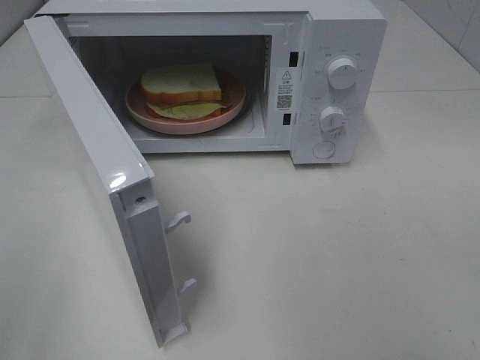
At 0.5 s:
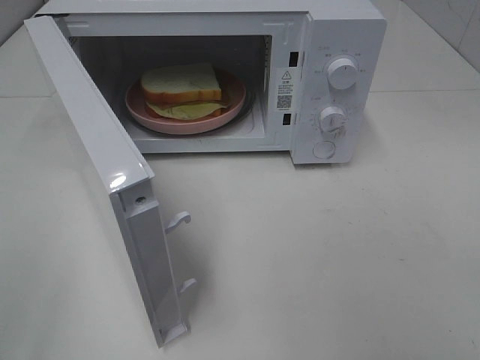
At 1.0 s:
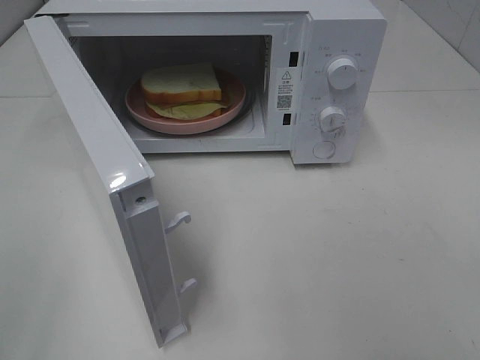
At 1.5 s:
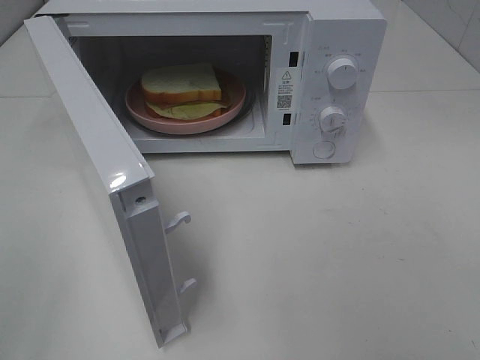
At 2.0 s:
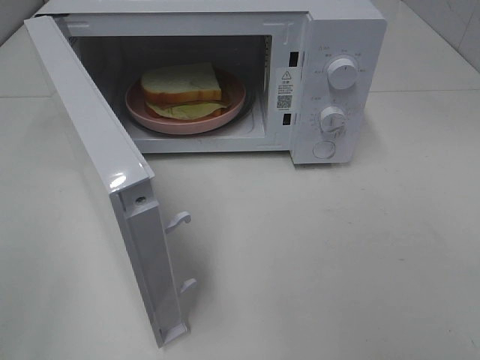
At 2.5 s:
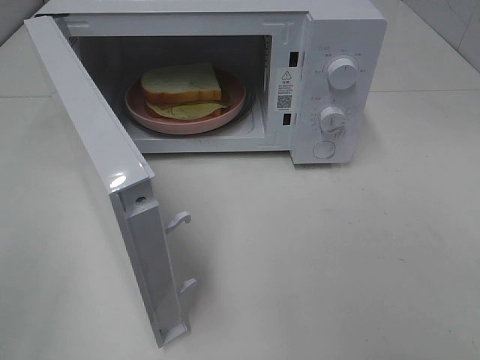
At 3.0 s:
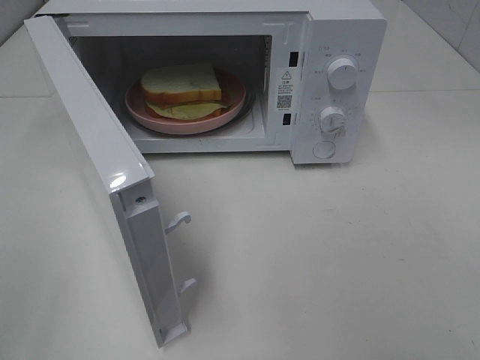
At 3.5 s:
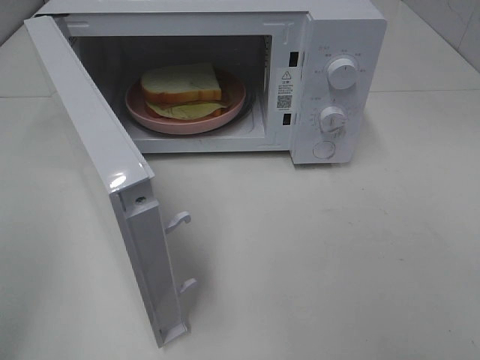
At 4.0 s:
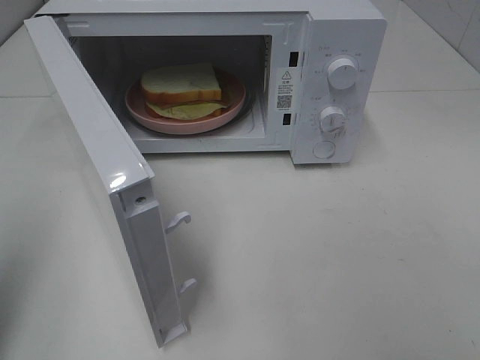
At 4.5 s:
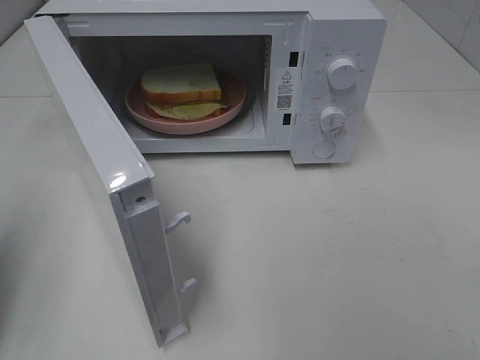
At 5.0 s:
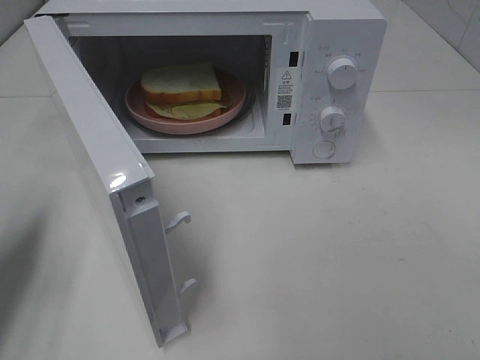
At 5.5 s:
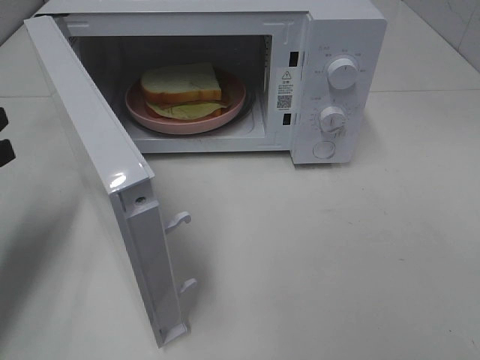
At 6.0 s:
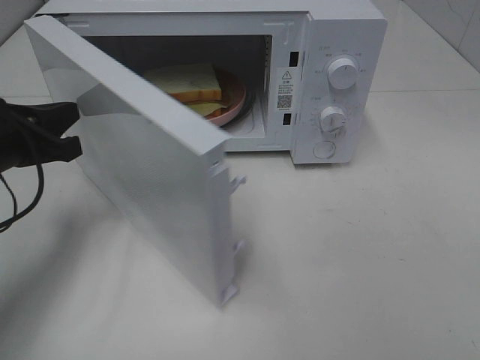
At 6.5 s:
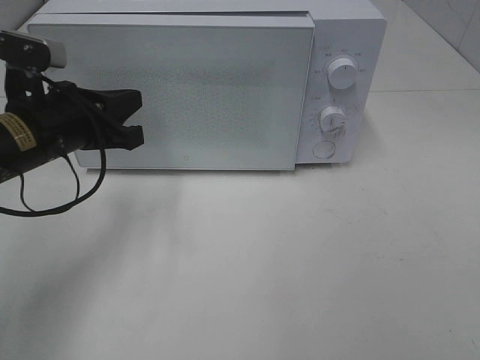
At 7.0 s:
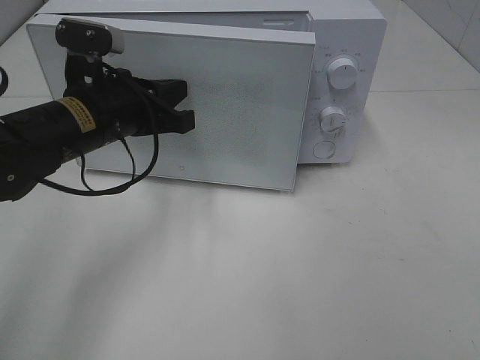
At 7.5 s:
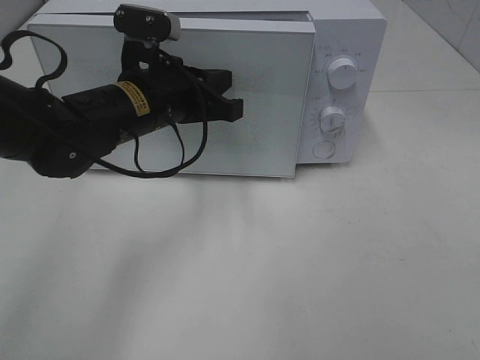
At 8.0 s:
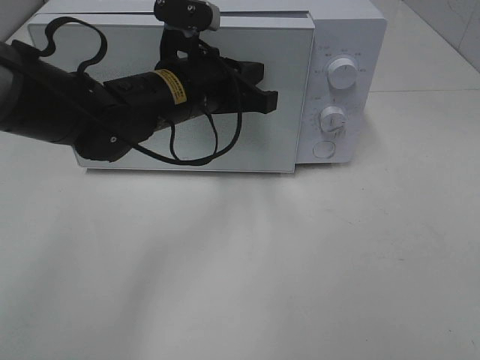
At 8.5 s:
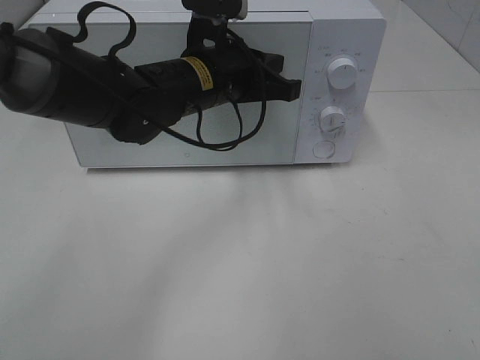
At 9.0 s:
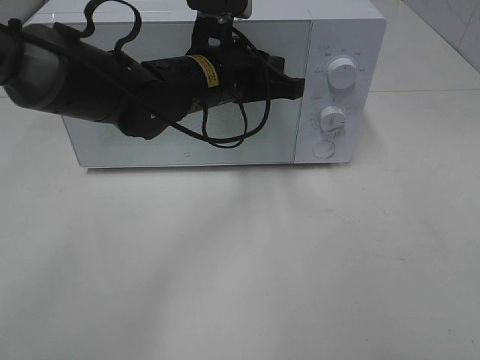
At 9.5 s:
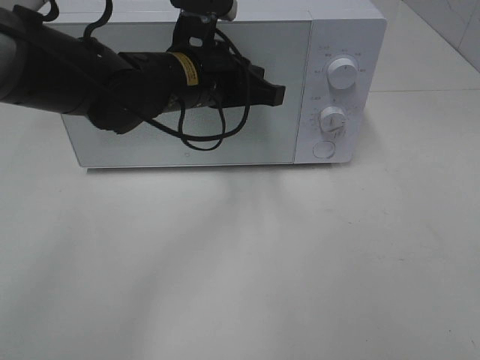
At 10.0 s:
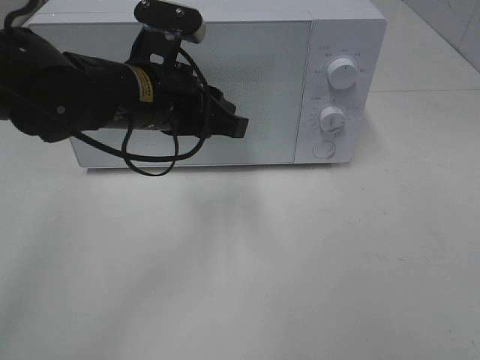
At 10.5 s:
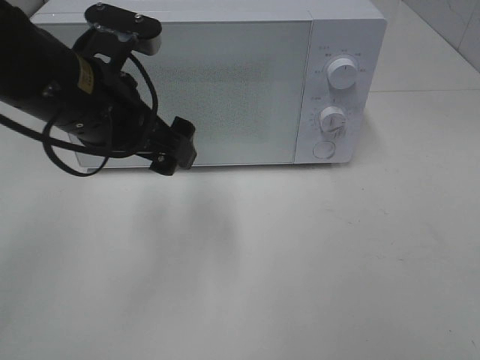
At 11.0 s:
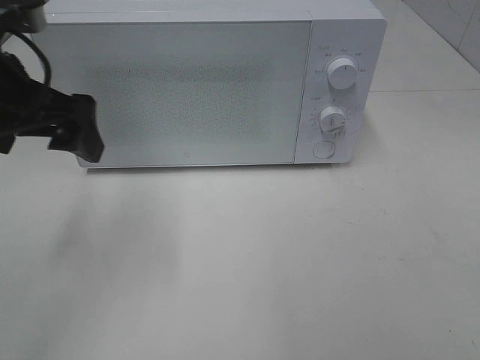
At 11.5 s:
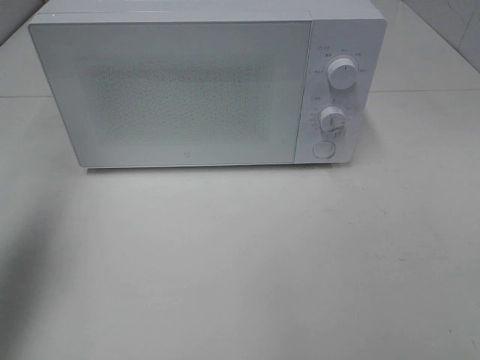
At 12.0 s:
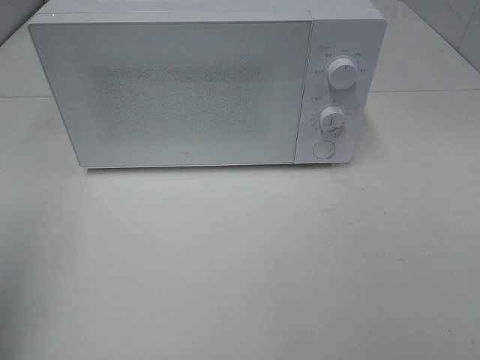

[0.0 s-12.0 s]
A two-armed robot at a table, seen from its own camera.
Task of the whole recording: Heat Sandwich.
Step, 0.0 to 10.0 s: Left hand: close the microwave door.
2.0 to 4.0 s: The left gripper travels forward by some 10 cm, and closes up.
4.0 to 6.0 s: The left gripper travels forward, downward and to the right by about 20 cm.
6.0 to 8.0 s: The left gripper goes some 20 cm to the right.
8.0 to 10.0 s: The left gripper changes place by approximately 5 cm, and opens up.
10.0 to 12.0 s: The left gripper travels to the left, backward and upward by some 35 cm, and opens.

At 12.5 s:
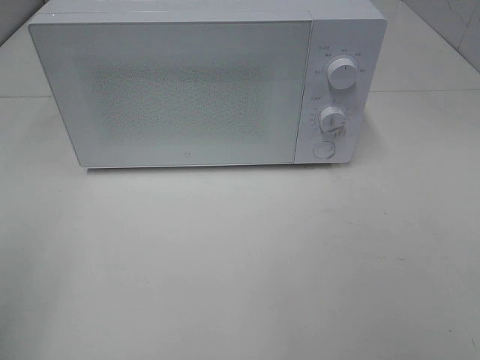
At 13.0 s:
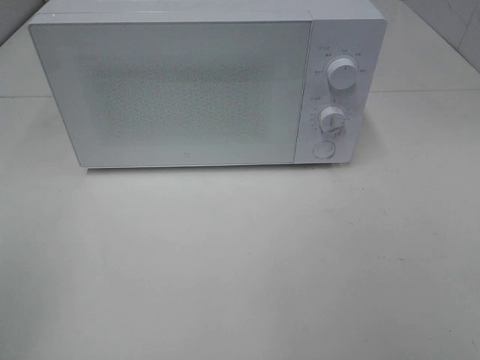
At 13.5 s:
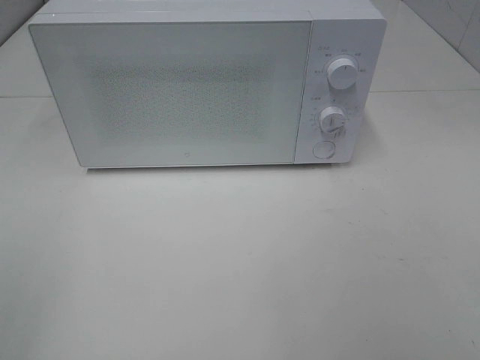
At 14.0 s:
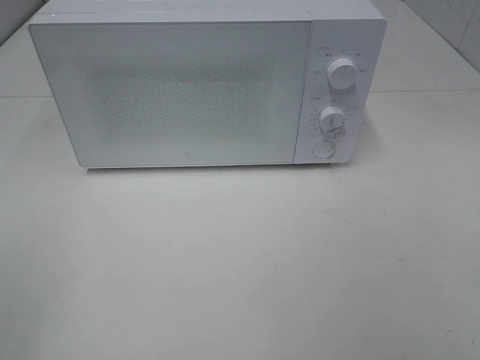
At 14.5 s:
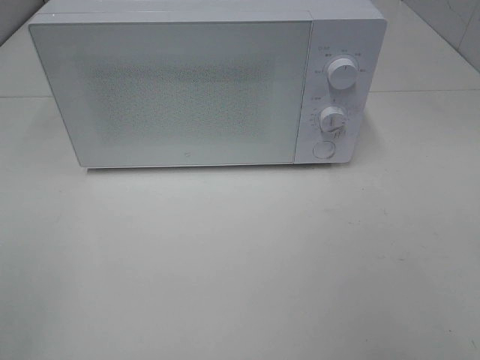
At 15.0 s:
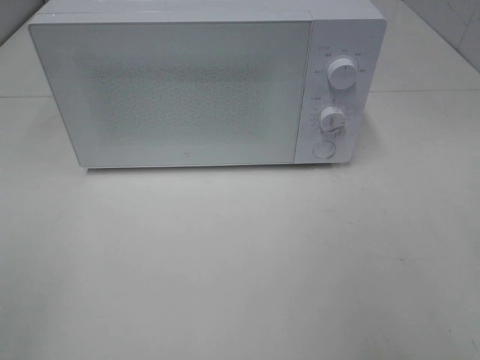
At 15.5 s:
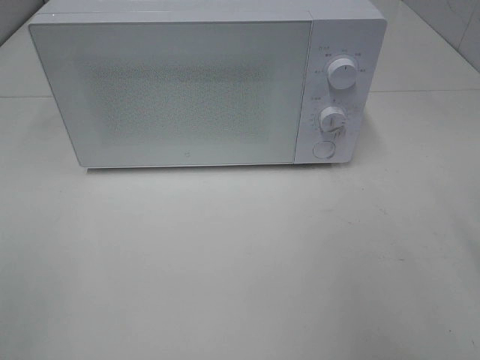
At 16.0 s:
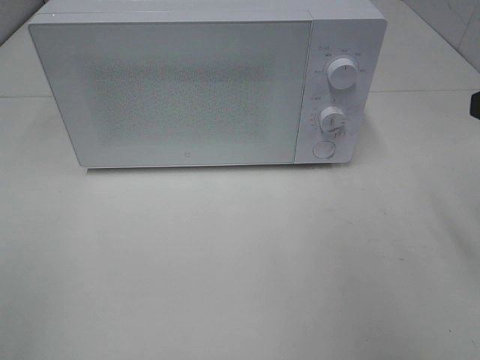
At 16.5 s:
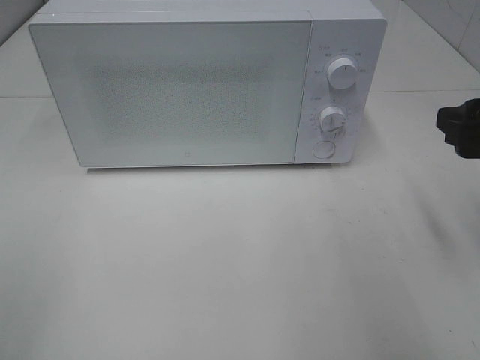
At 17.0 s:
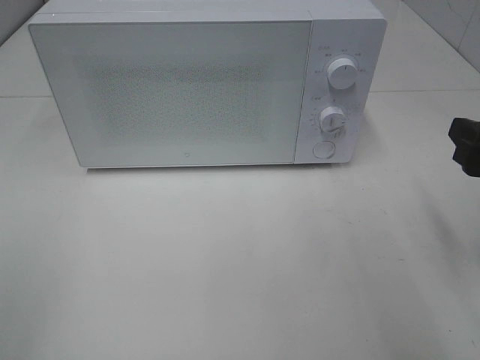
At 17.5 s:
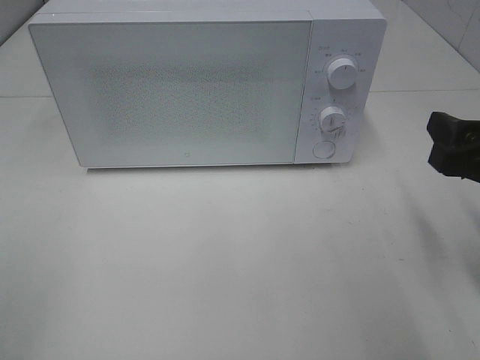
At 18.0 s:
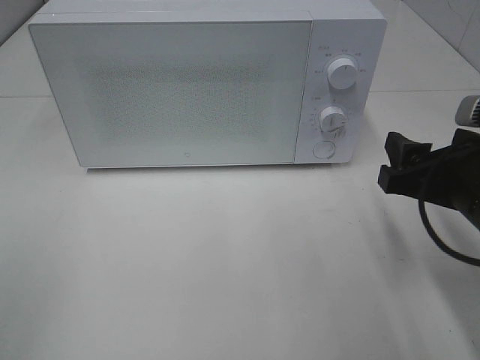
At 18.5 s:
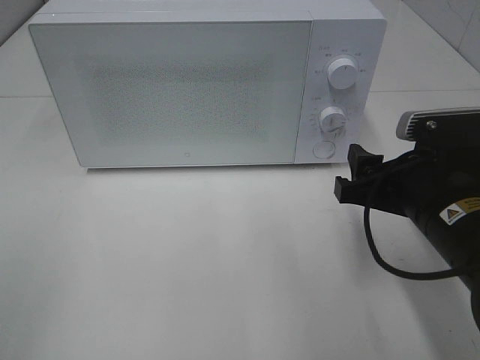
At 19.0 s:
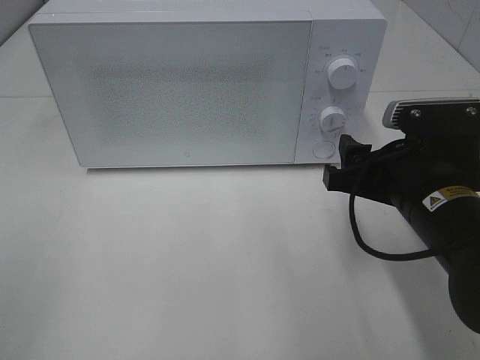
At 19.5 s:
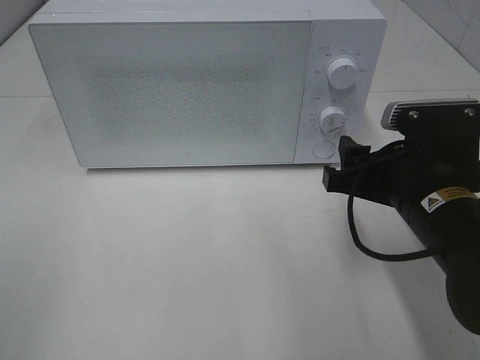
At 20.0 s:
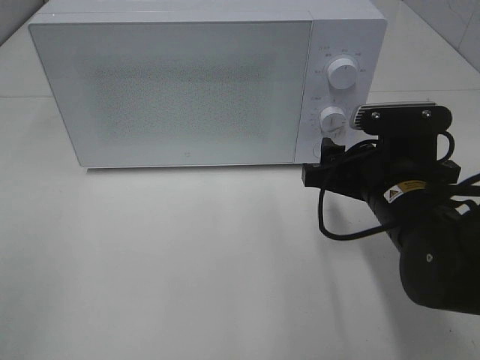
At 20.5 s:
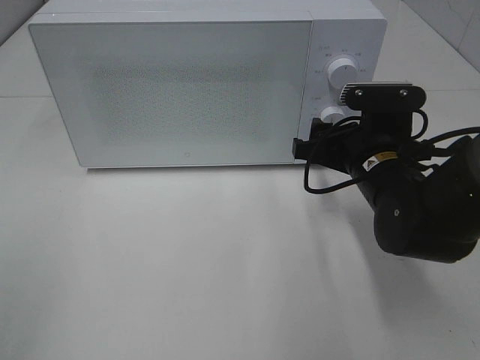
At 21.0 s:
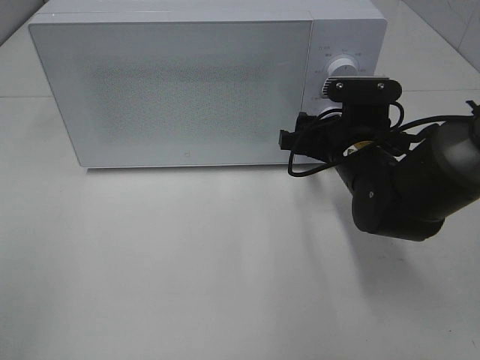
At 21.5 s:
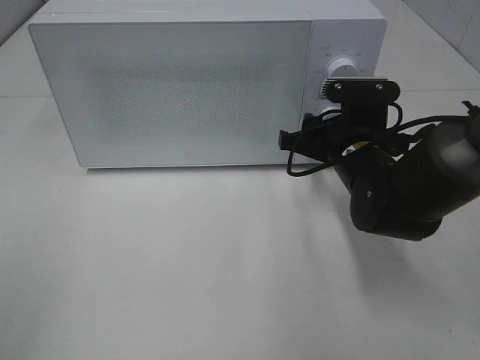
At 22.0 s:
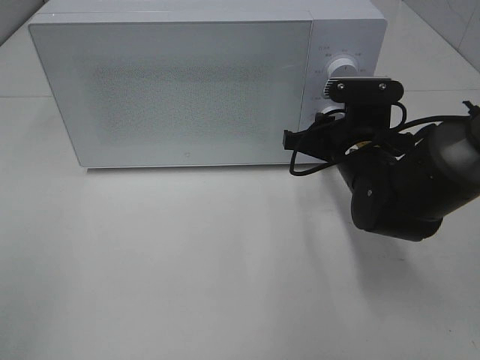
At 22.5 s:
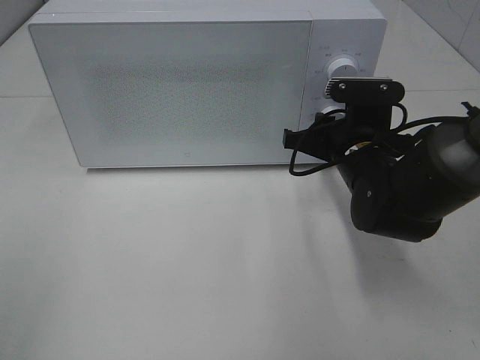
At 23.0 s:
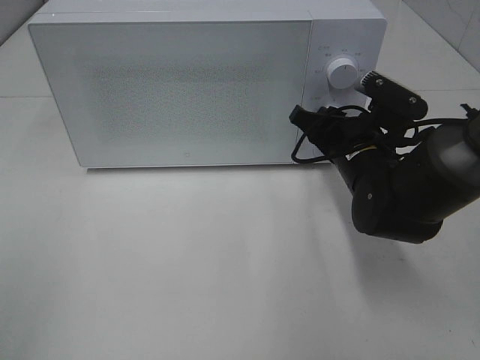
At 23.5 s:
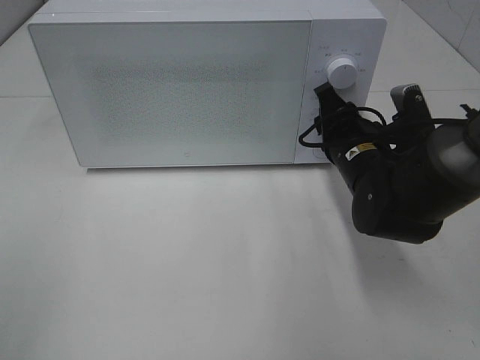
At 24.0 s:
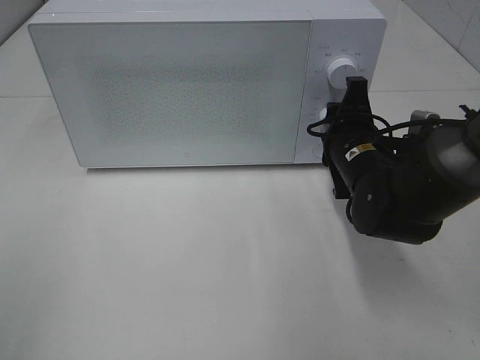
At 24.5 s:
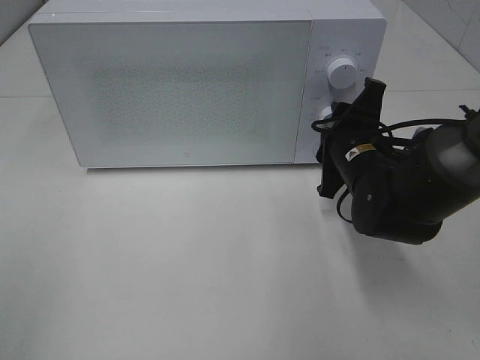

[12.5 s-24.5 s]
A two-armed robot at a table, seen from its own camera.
Task of the whole recording: Heat Sandwich.
14.5 to 16.5 s: The right gripper shifts about 15 cm forward and downward.
16.5 to 18.5 s: The right gripper goes approximately 10 cm to the left and downward.
18.5 to 20.5 s: The right gripper heads forward, covering some 10 cm.
20.5 to 22.5 s: The right gripper closes up.

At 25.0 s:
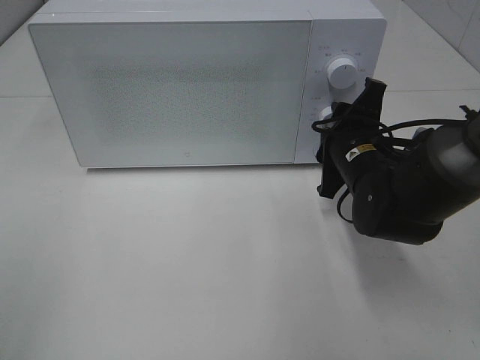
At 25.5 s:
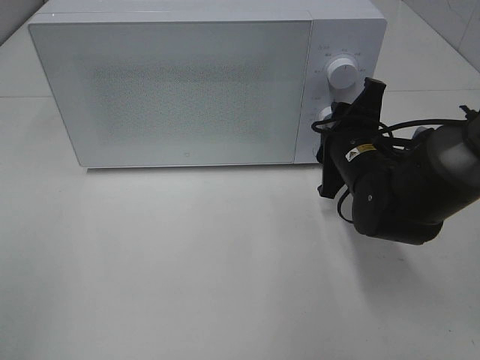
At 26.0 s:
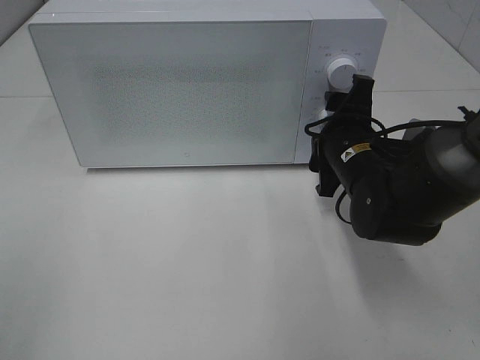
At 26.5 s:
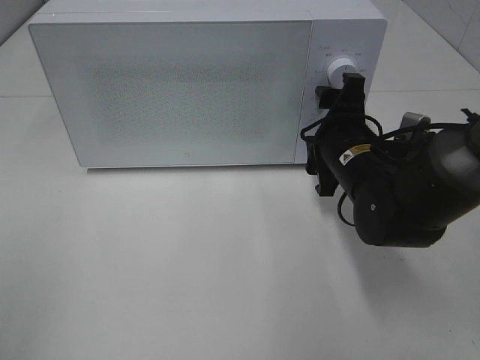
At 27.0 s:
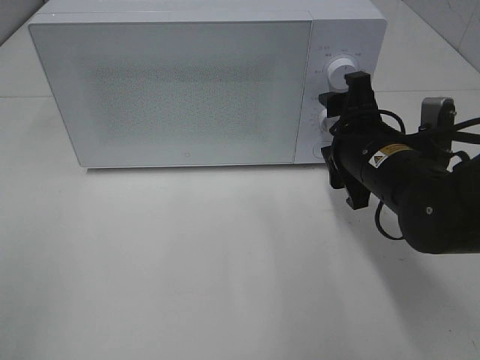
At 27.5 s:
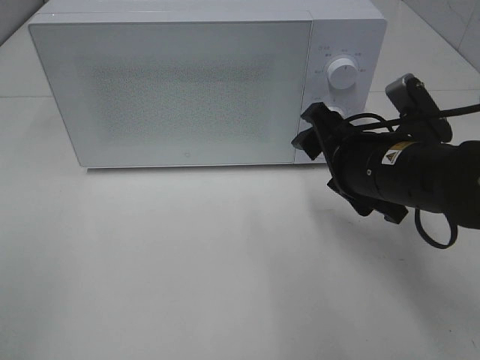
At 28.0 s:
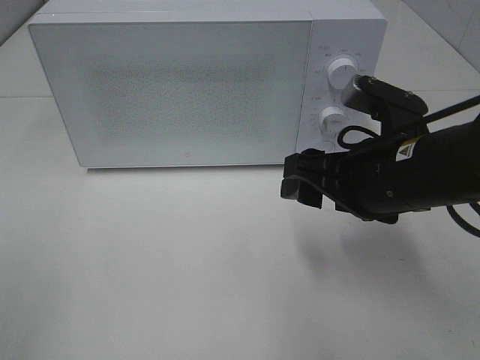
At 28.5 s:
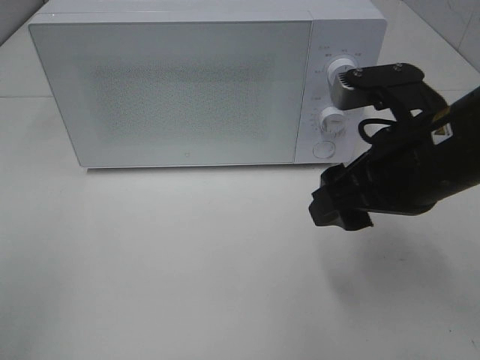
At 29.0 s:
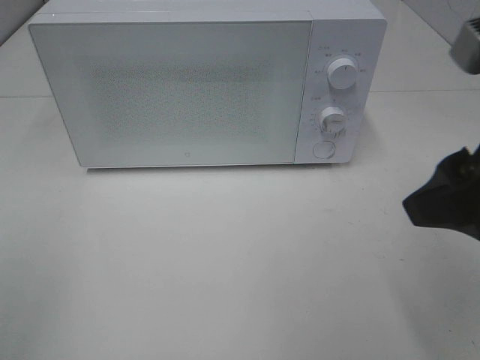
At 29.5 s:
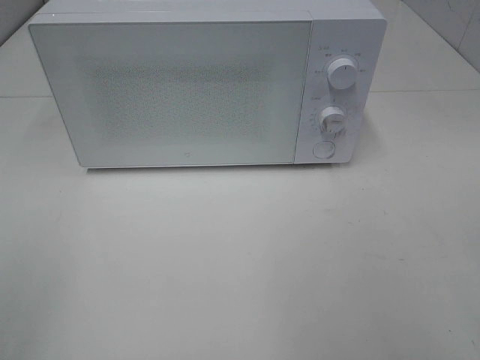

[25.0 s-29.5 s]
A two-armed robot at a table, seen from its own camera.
Task of the whole recording: Heat Sandwich.
25.0 to 27.0 s: The right gripper moves about 5 cm, and opens.
27.0 to 29.5 s: The right gripper shifts roughly 30 cm backward, upward and to the right.
